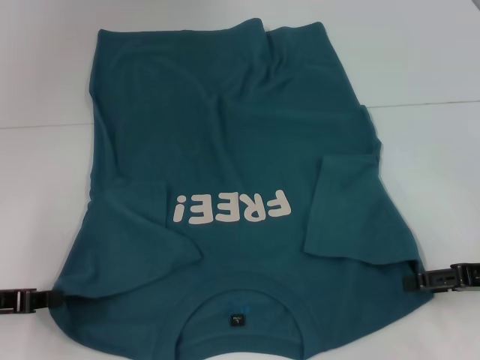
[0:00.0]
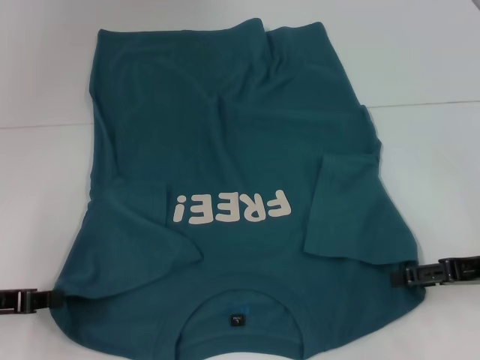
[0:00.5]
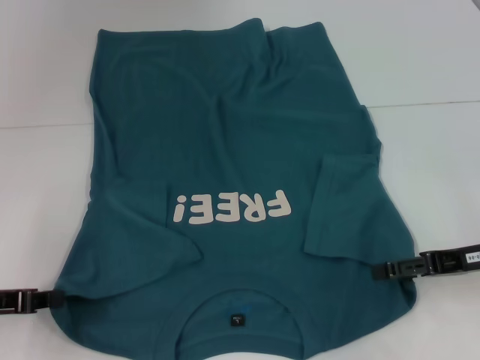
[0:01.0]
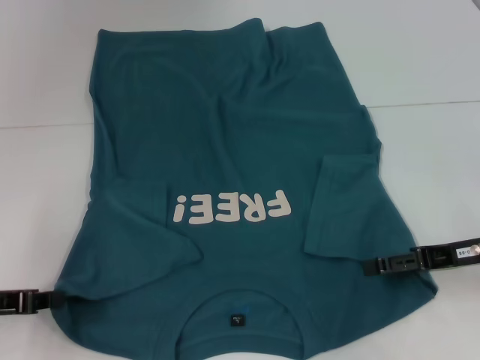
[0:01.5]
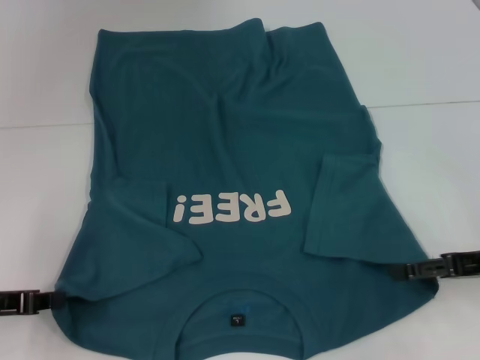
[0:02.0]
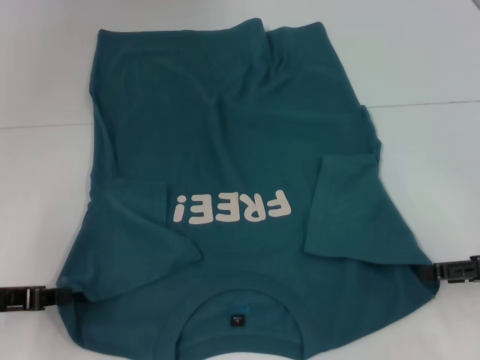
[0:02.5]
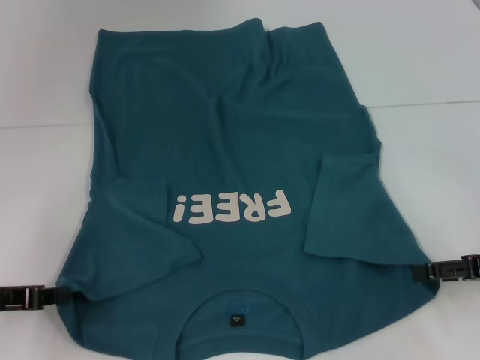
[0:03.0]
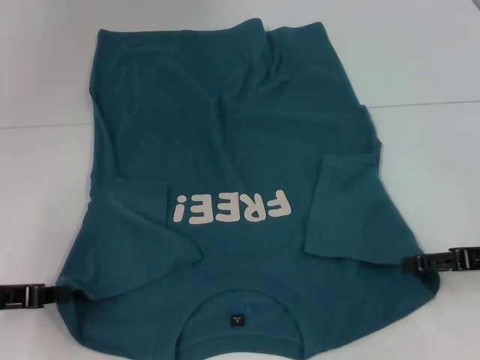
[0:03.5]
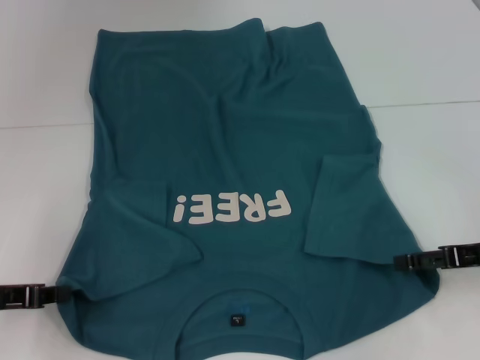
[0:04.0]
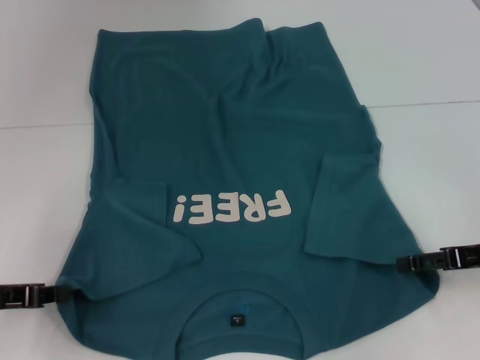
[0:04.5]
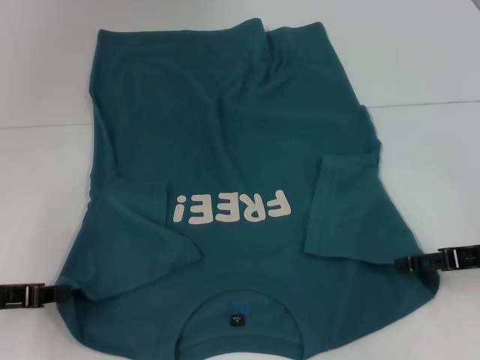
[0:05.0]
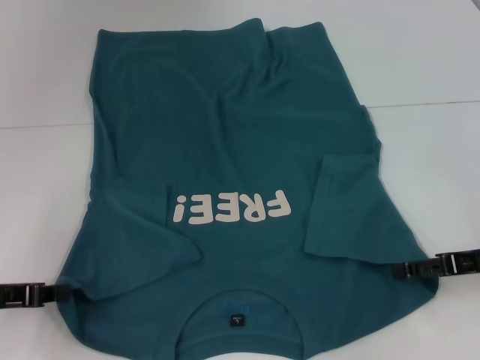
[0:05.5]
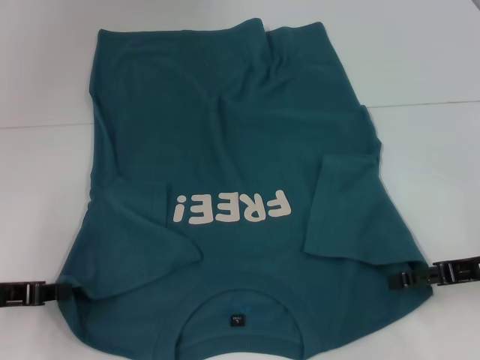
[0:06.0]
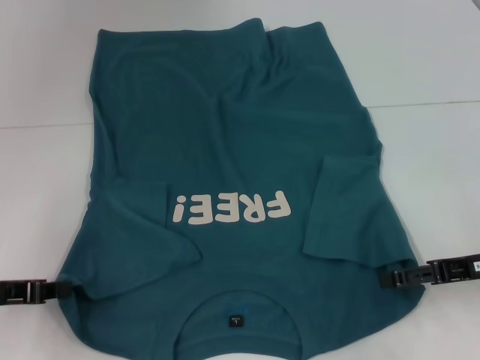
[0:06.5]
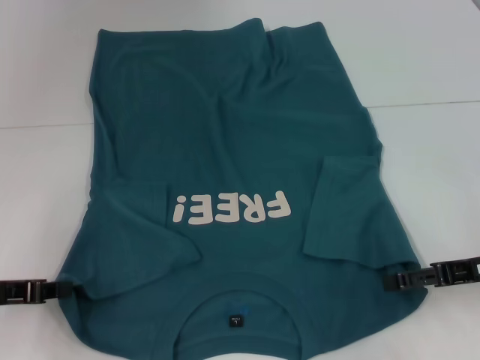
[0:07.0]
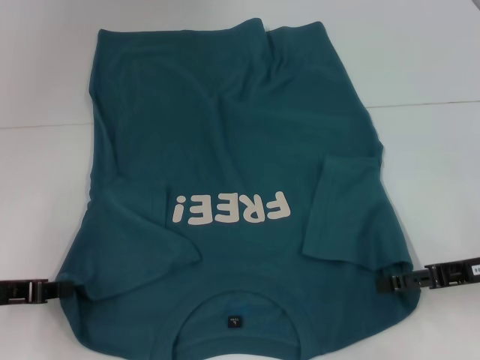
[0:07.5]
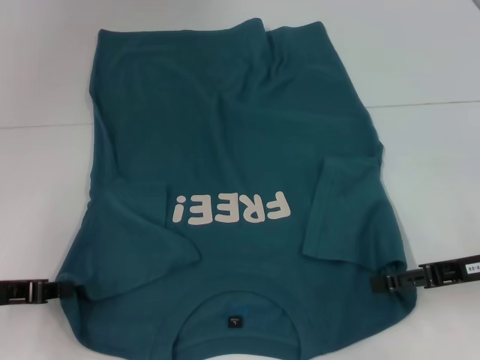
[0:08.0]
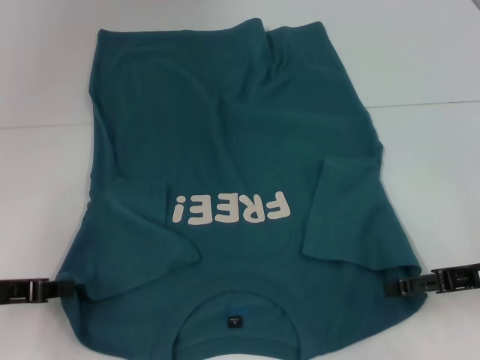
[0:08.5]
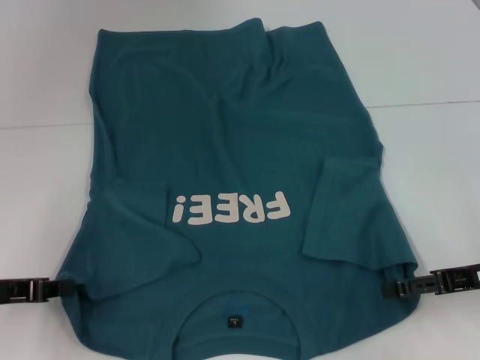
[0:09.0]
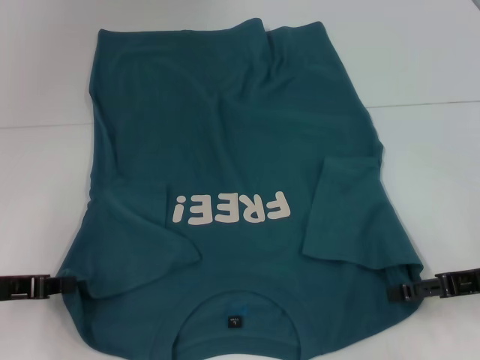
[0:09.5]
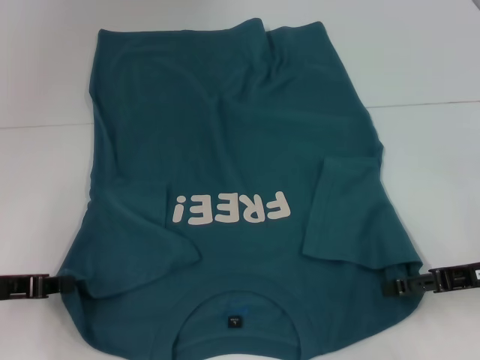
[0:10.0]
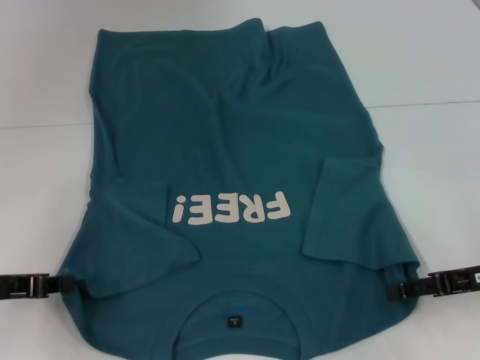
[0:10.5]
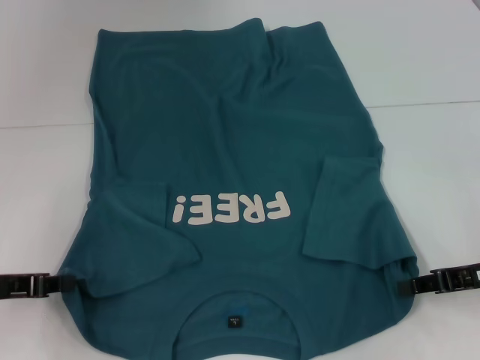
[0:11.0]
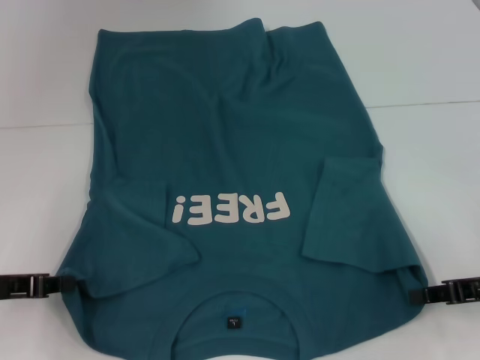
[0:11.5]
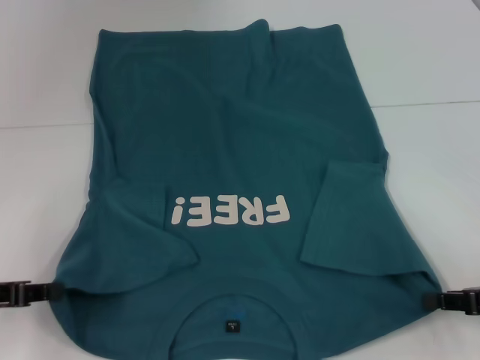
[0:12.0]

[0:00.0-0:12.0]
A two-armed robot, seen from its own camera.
Step, 0:00.0 to 0:11.5: Grab the bottom right corner with your right hand.
0:00.0 to 0:04.0: The grippers make only small movements.
0:04.0 to 0:06.0: The two grippers keep their place.
0:06.0 to 0:10.0: The grippers stay close to where they were, moving slightly.
0:10.0 to 0:12.0: The right gripper shifts by approximately 5 cm, and closes its fingers.

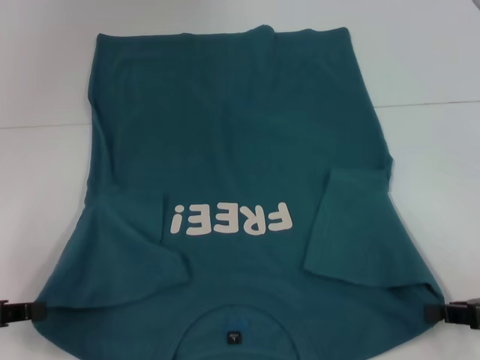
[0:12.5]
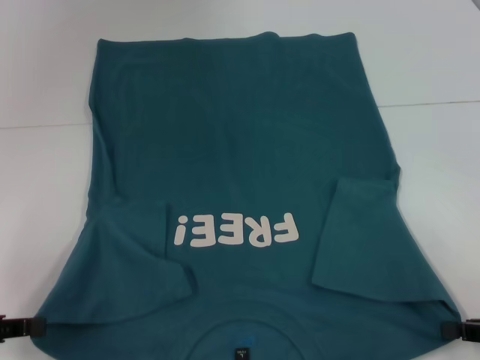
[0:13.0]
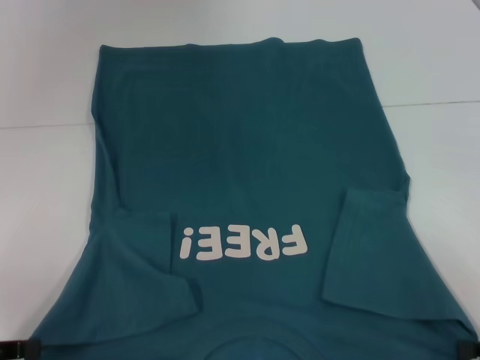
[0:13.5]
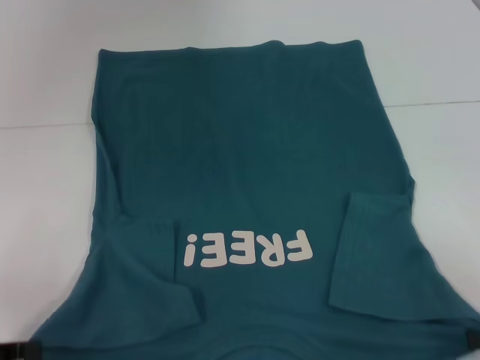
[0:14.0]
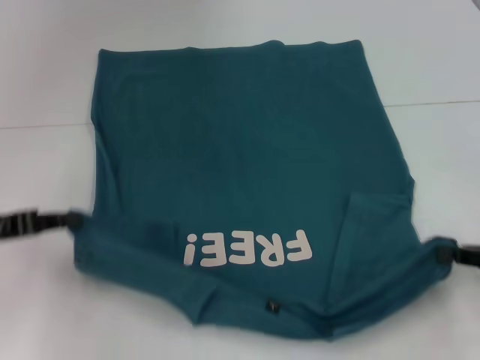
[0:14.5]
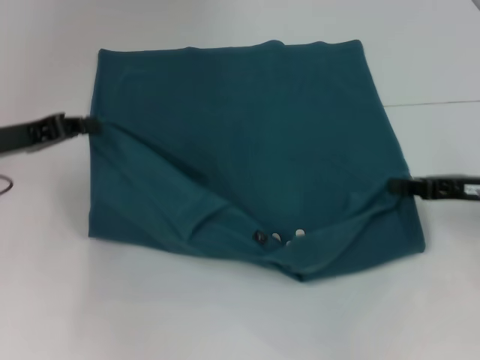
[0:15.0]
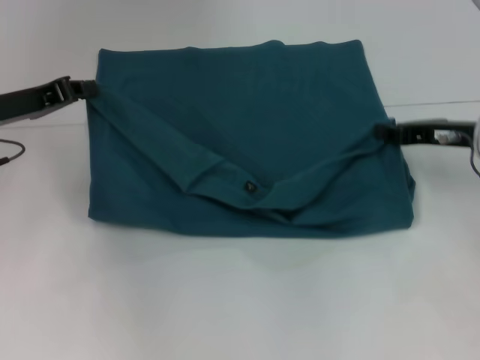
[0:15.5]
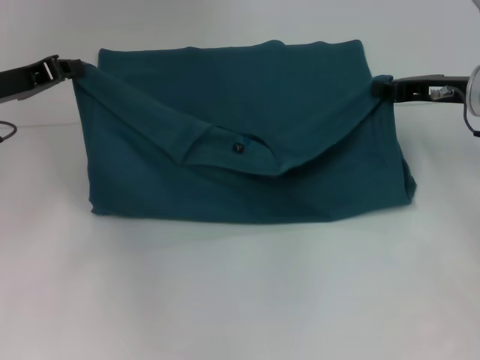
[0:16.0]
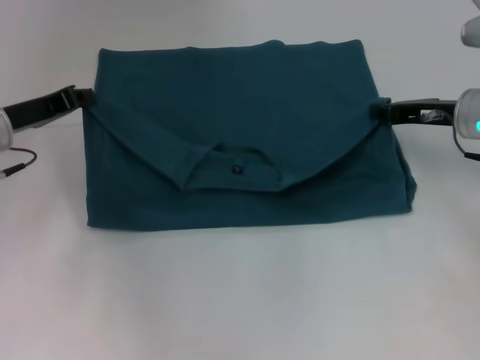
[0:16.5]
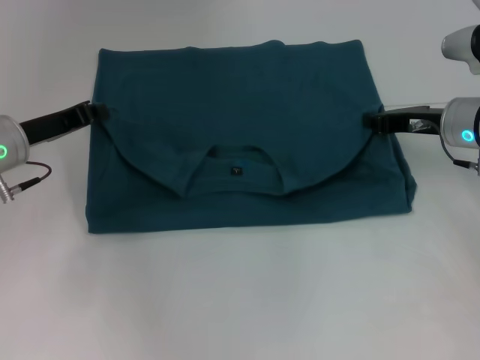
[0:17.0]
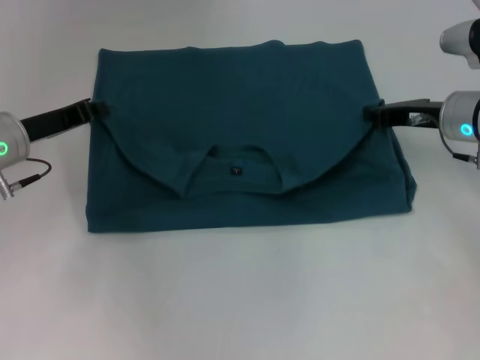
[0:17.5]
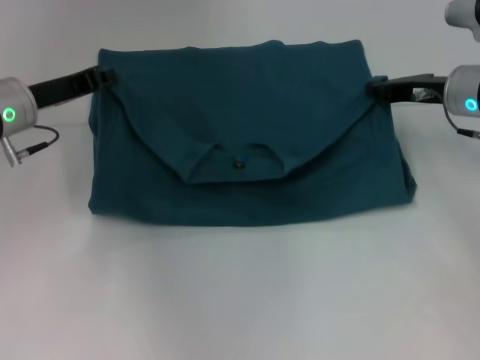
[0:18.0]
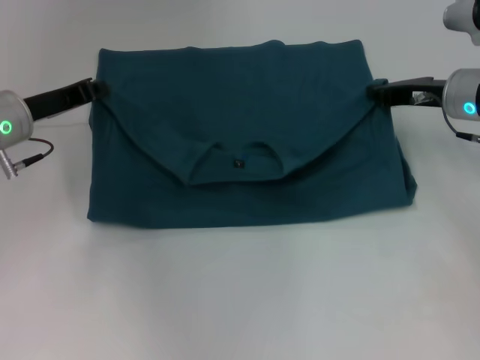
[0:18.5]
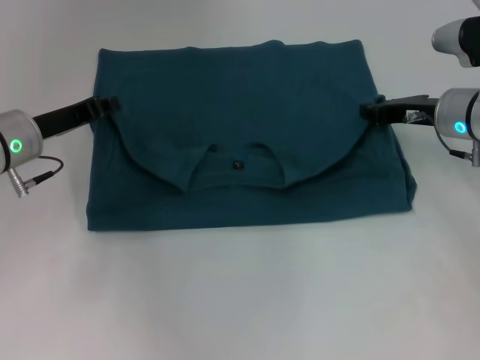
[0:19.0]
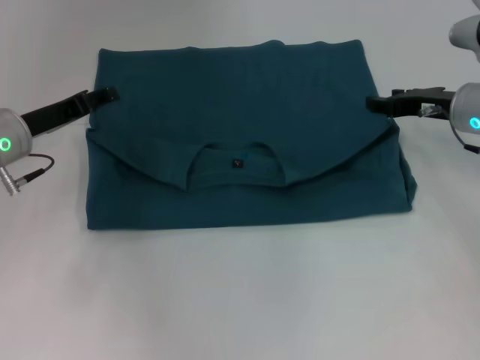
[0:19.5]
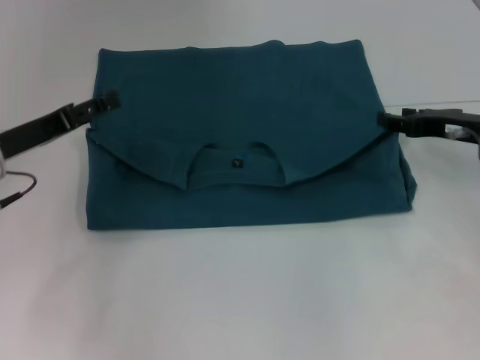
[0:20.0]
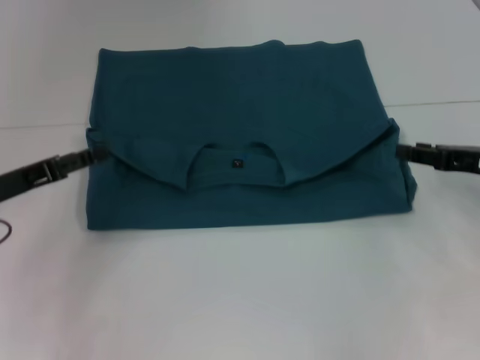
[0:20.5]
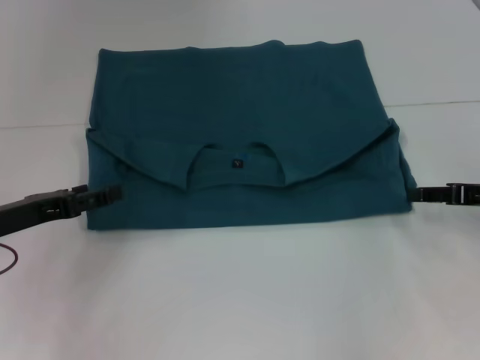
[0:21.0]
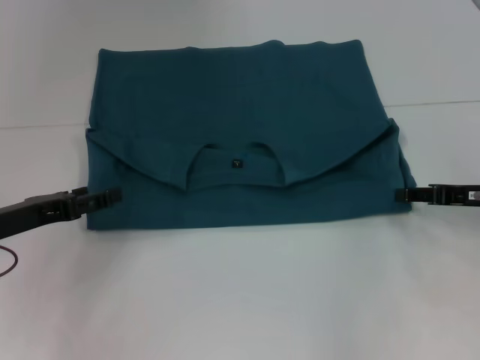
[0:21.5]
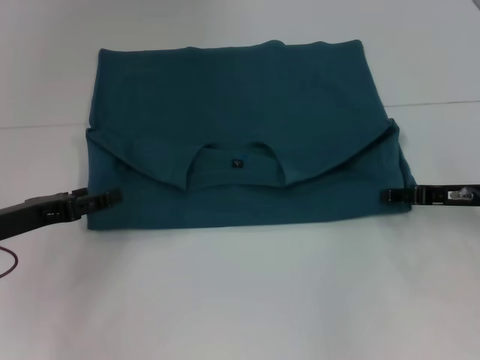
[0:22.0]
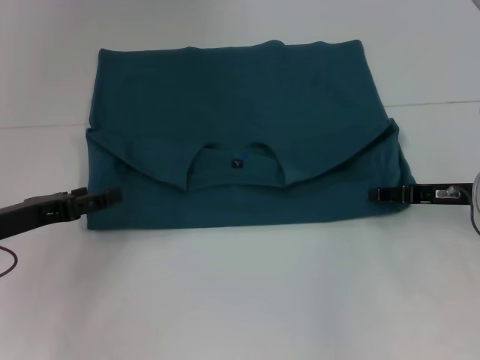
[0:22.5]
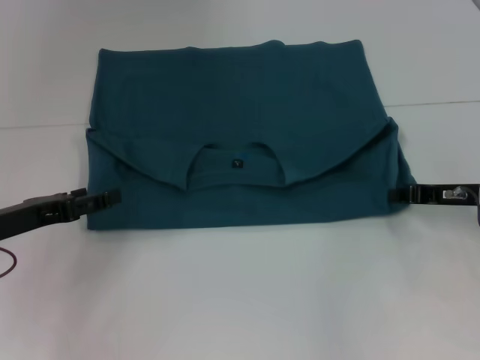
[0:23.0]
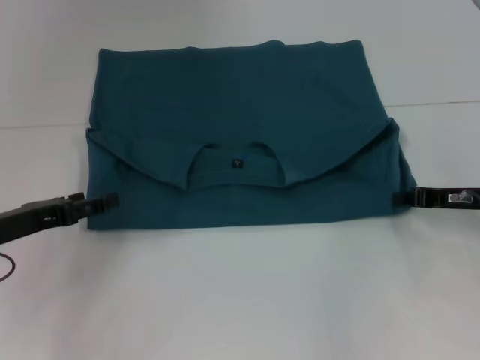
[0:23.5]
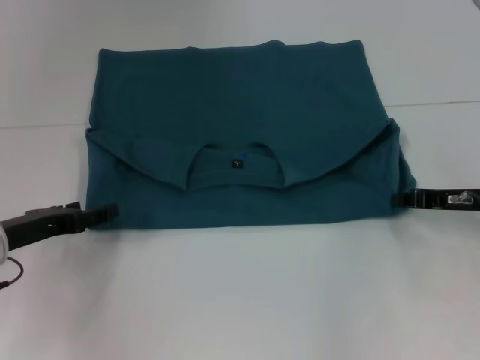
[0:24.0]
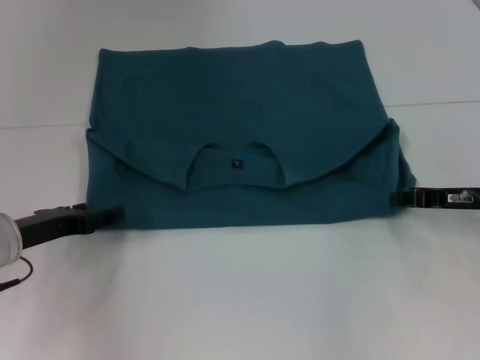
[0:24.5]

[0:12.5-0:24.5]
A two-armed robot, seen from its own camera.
Step, 0:12.5 to 0:19.5: Fold the clothes to the left.
Step, 0:12.5 to 0:19.5: Fold the clothes to the right.
0:12.5 to 0:14.5: The left gripper moves forward, some 5 cm.
0:14.5 to 0:16.5: The left gripper is displaced forward and to the right by about 10 cm, while the right gripper travels forward and to the left by about 20 cm.
0:16.5 to 0:18.5: There are only small adjustments of the grippers.
0:18.5 to 0:20.5: The left gripper shifts approximately 10 cm backward, and opens up. Meanwhile the right gripper is displaced backward and to the right by approximately 10 cm, and opens up.
0:20.5 to 0:22.5: The right gripper moves approximately 5 cm.
0:22.5 to 0:24.5: The right gripper closes.

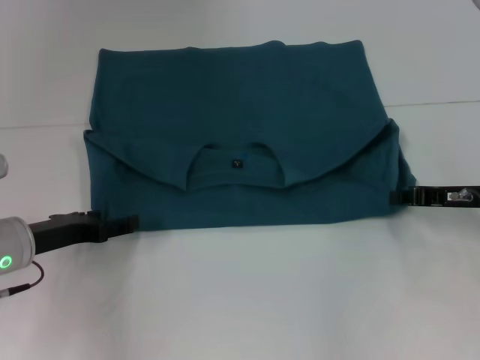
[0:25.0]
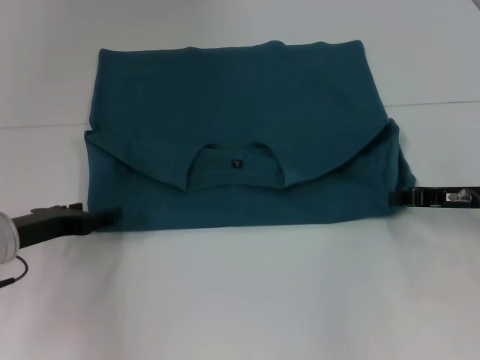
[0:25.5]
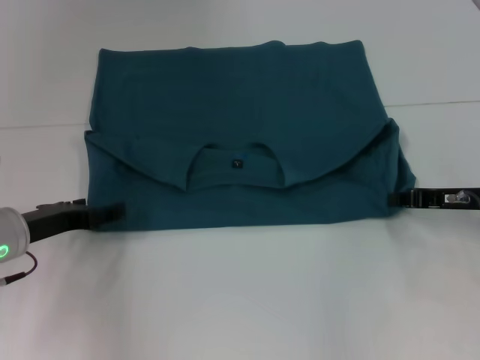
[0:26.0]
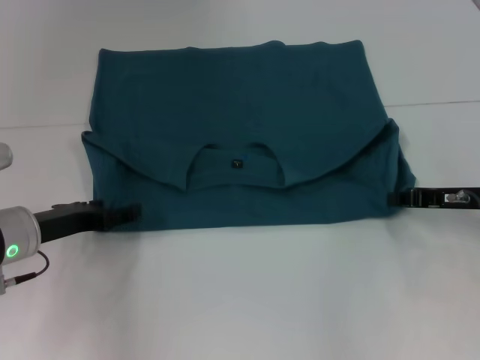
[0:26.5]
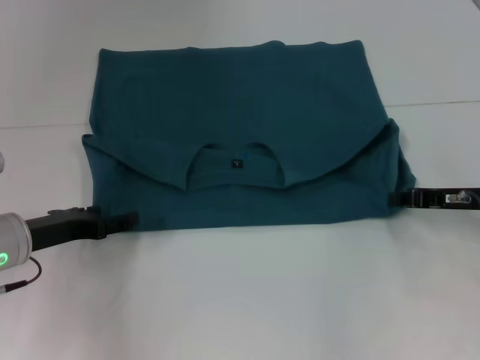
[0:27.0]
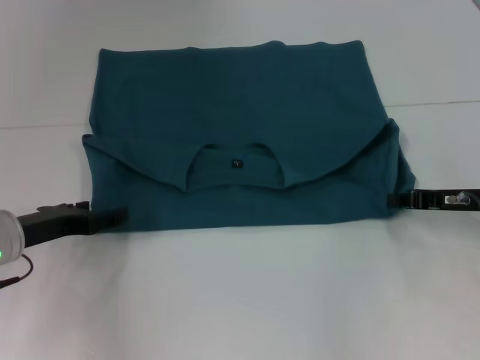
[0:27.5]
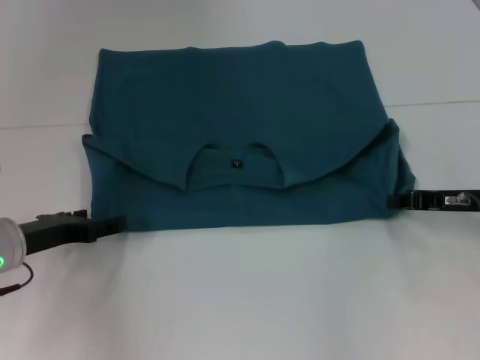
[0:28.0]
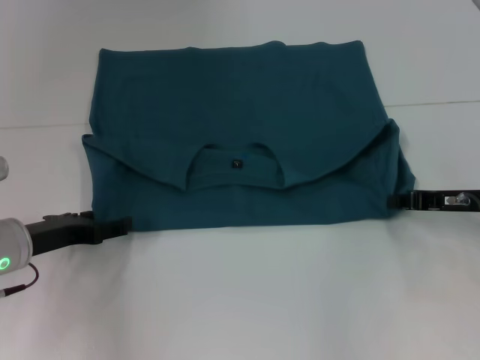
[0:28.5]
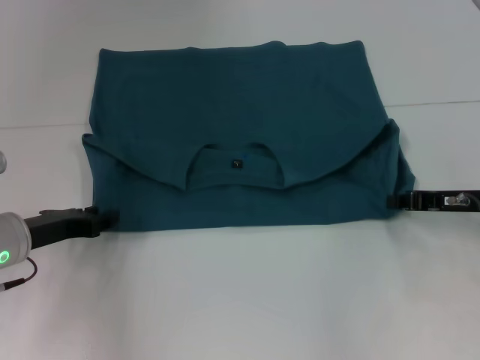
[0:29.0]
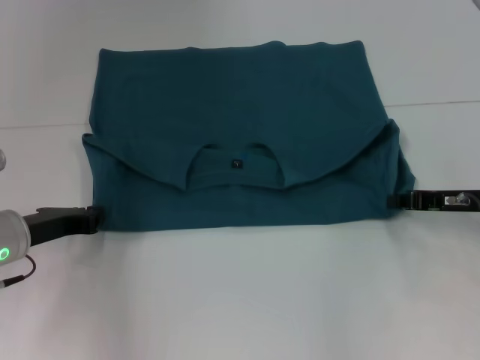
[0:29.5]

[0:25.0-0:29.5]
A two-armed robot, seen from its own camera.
0:25.0 to 0:27.0: The grippers move only a little.
0:27.0 to 0:29.5: The left gripper closes its fingers.
